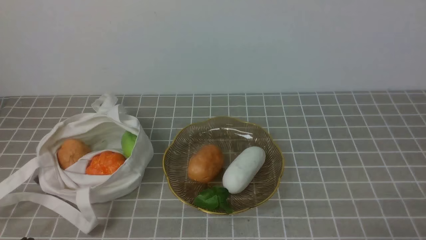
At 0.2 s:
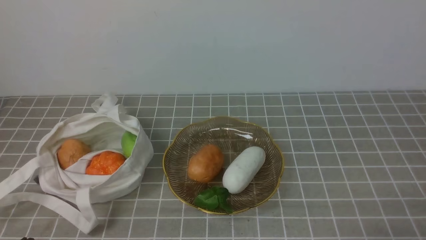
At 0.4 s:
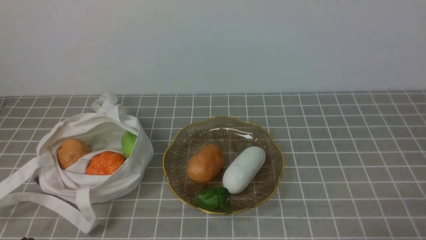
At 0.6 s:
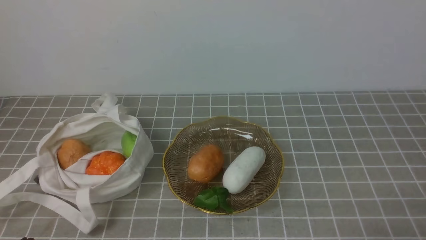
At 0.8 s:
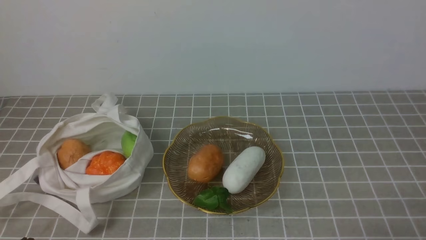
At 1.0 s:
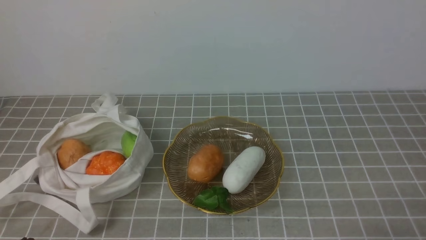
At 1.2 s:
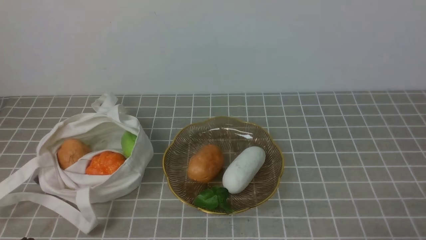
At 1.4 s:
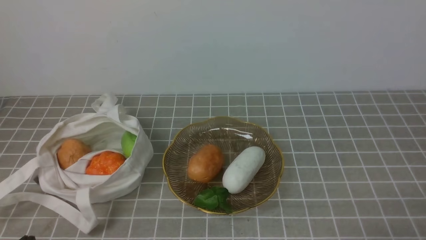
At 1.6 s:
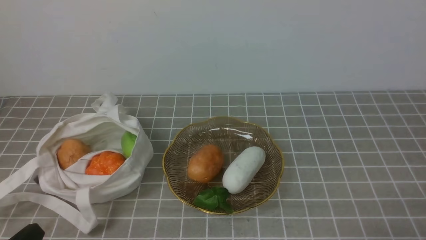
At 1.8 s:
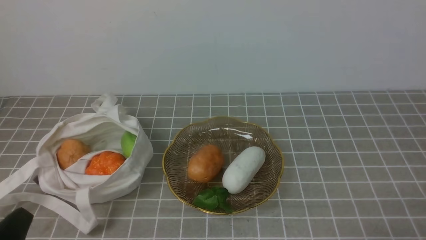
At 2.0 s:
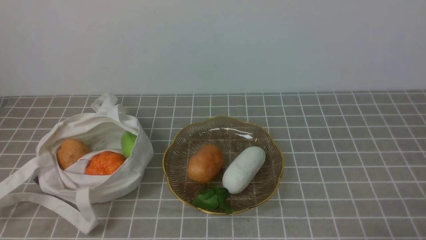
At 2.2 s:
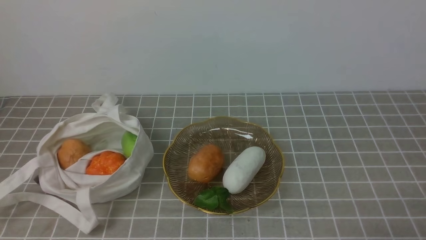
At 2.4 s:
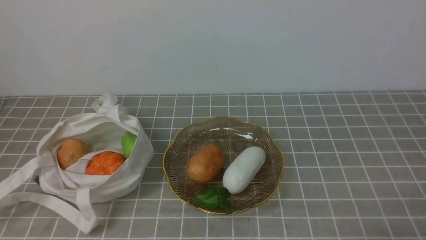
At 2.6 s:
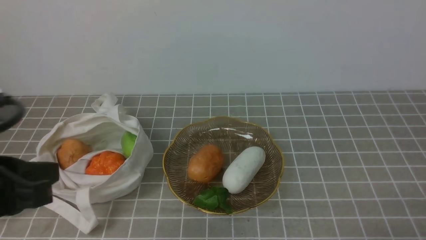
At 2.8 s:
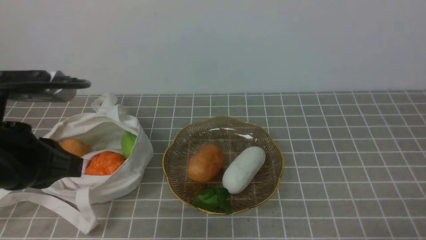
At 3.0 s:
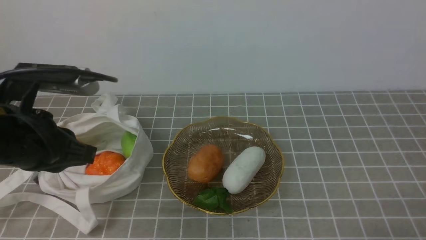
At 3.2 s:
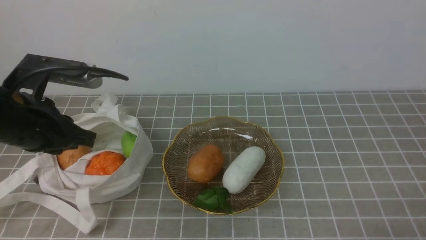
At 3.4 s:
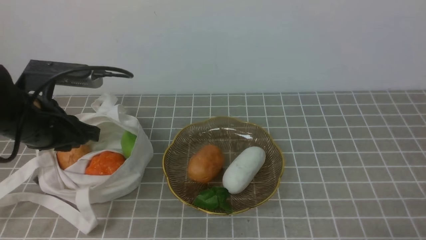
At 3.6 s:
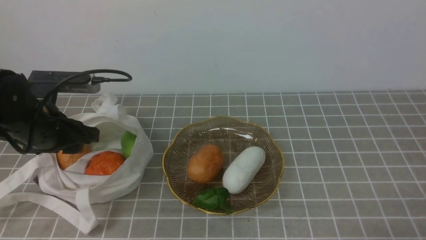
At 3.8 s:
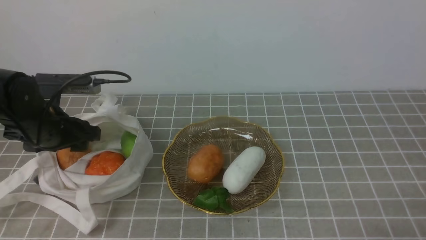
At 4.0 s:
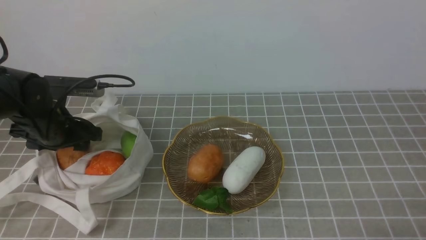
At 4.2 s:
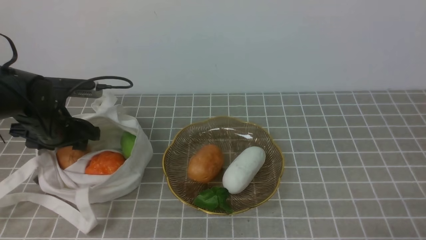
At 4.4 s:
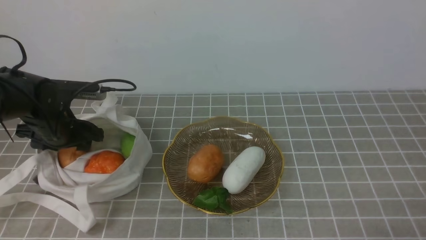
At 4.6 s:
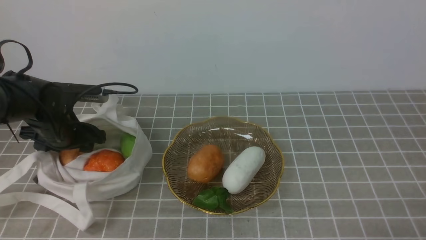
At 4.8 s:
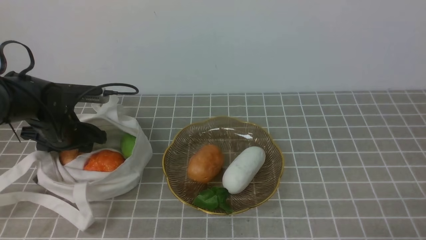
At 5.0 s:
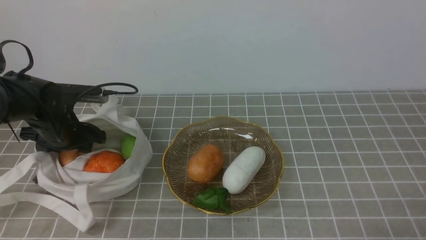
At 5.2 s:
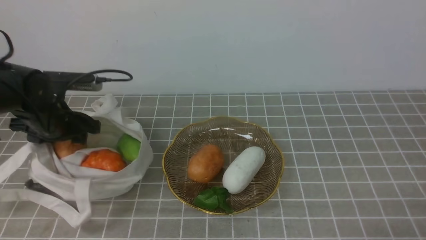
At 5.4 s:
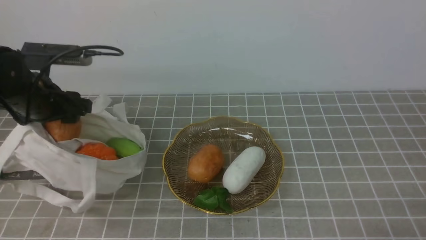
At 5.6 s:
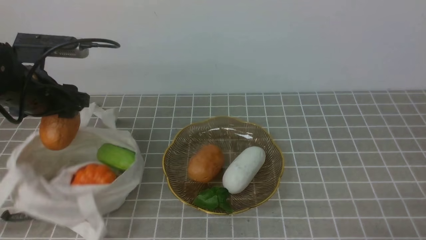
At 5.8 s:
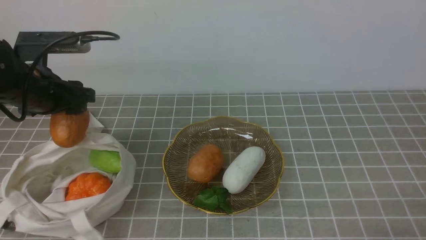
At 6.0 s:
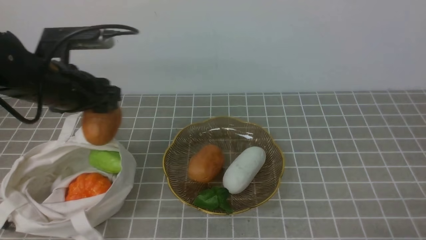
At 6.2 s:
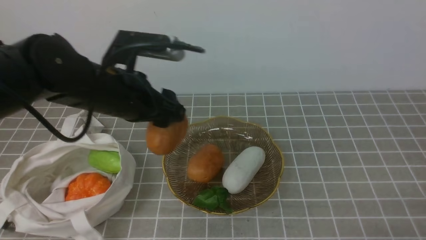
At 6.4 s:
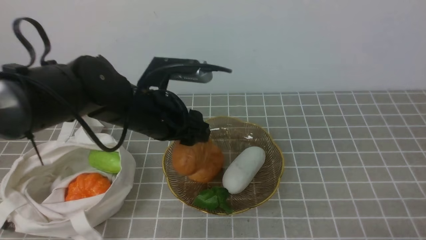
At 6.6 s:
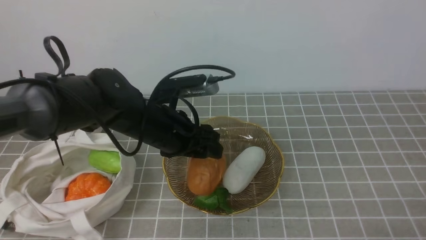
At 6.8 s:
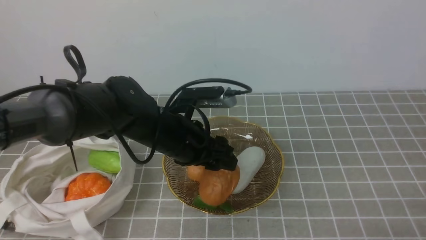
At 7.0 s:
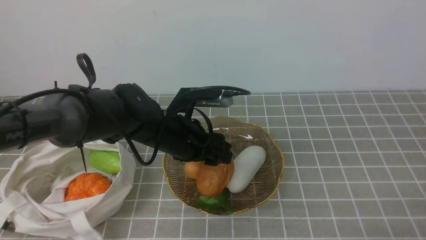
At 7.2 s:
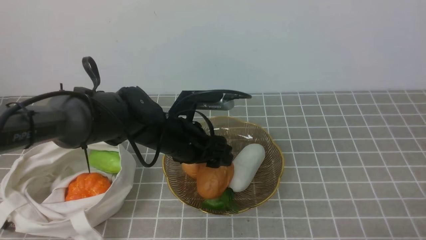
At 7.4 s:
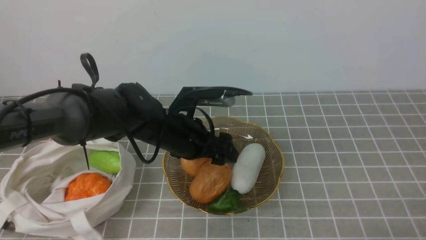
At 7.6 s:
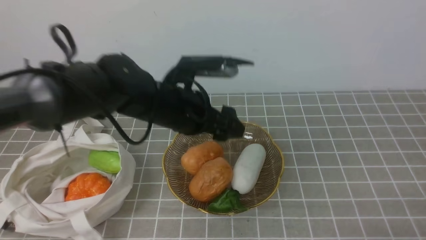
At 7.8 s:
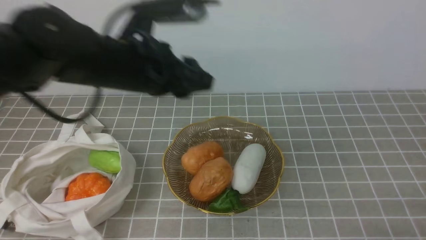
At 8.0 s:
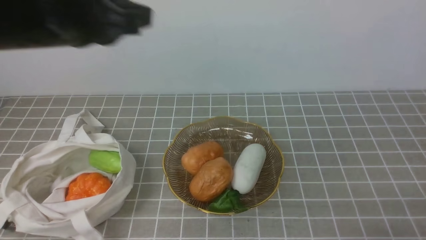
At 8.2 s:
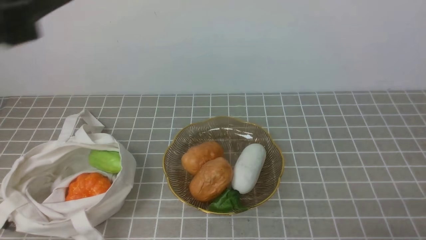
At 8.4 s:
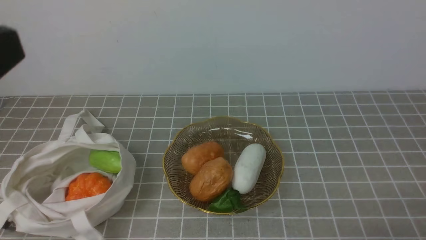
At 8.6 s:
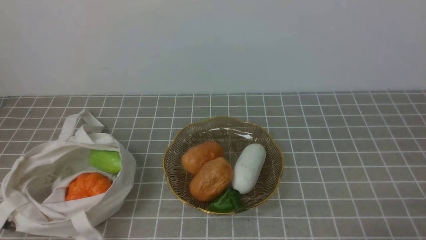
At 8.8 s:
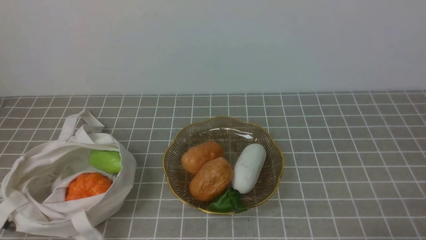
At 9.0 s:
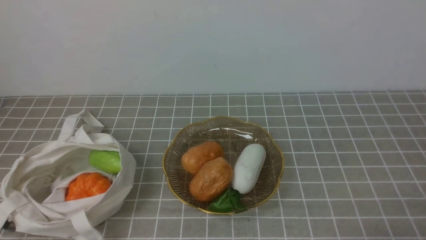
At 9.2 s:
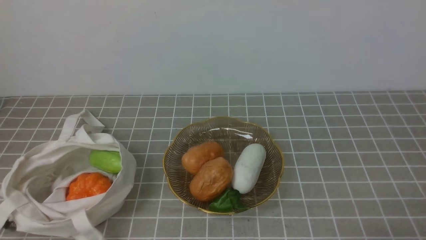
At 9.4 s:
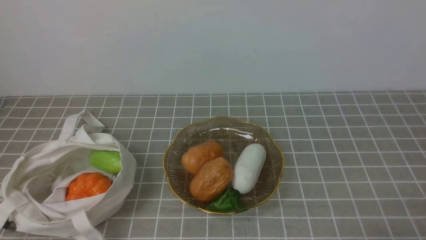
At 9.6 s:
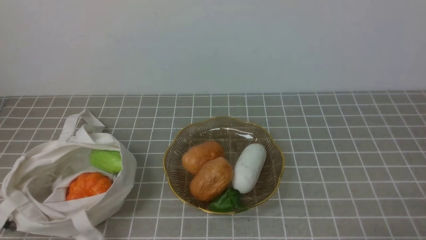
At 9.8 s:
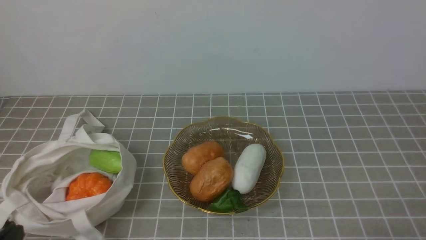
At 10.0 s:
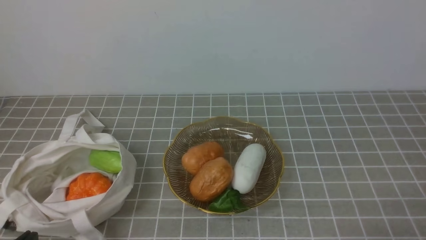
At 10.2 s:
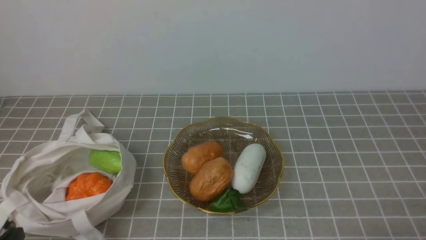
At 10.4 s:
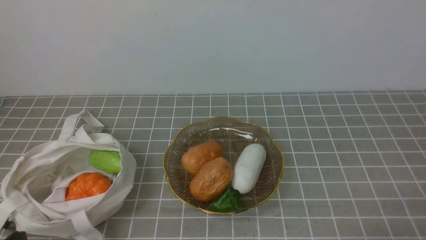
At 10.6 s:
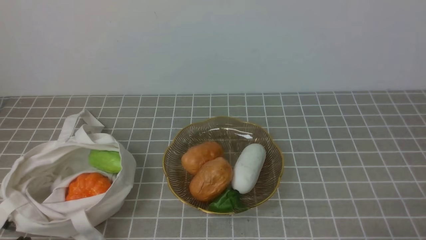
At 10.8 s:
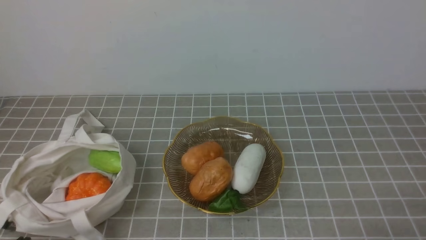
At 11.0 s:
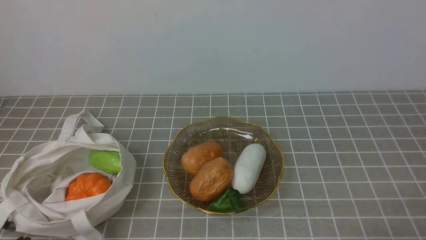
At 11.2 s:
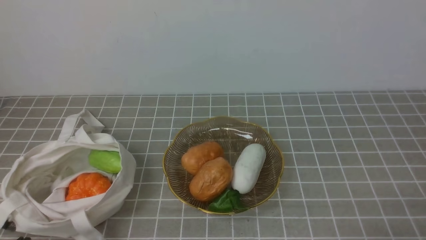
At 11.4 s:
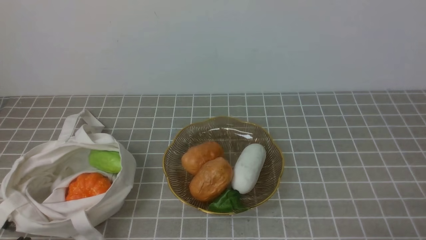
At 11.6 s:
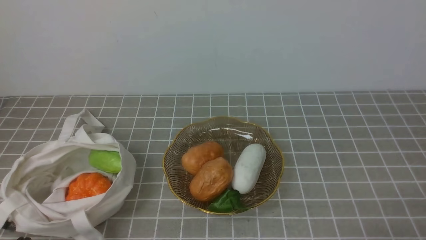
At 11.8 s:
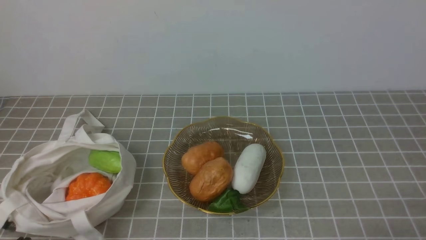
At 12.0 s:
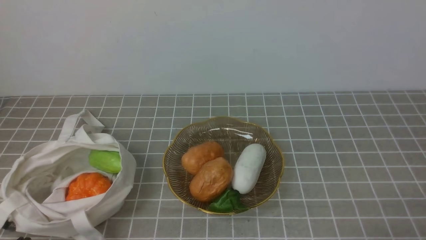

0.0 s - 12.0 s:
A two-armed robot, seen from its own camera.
Task of the whole recording: take vegetables from bag on grey coffee tablecloth place on plate.
Step, 0.0 s - 5.0 s: Grasp the potato with left gripper.
Step, 5.2 s - 7.6 s: Place the potato on the plate with left gripper.
1.6 s - 3.0 s: The left gripper is displaced forward and upward by some 20 cm.
3.0 s - 4.4 s: The left gripper travels forward and downward by roughly 20 cm, and opens its fingers.
4.4 s - 6.0 s: The left gripper goes some 10 cm upward.
6.0 s - 7.6 s: The left gripper travels to the right by some 15 cm.
7.6 s - 9.0 s: The left gripper goes approximately 40 cm backward, to the left and upward, and closes its fingers.
10.4 s - 12.0 s: Both grippers stay put.
